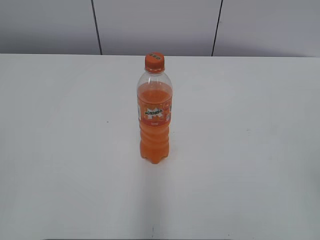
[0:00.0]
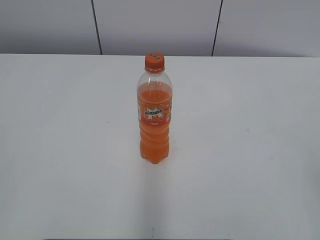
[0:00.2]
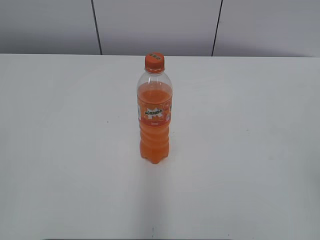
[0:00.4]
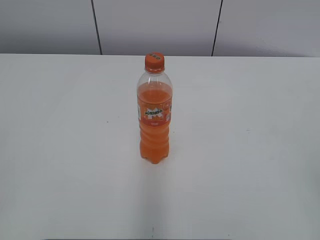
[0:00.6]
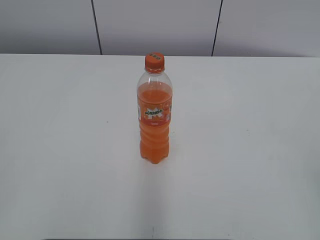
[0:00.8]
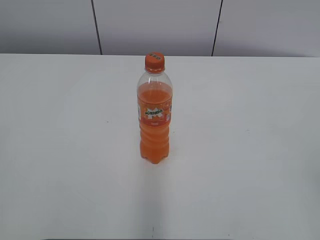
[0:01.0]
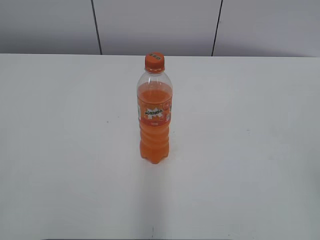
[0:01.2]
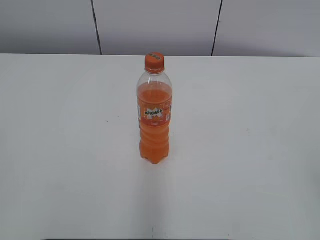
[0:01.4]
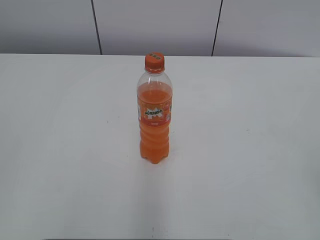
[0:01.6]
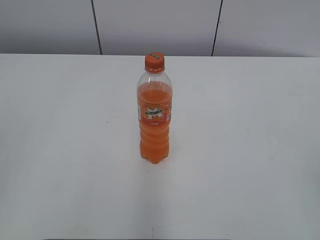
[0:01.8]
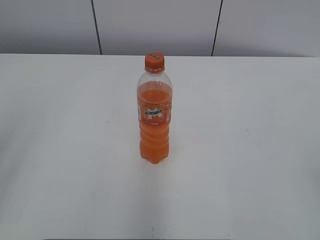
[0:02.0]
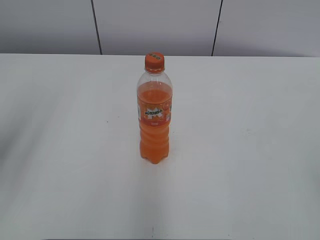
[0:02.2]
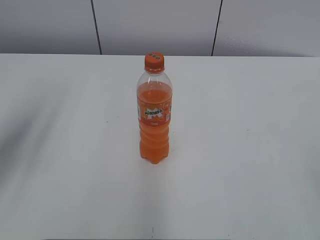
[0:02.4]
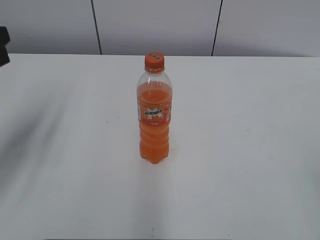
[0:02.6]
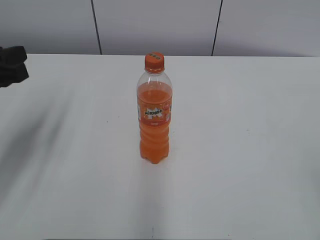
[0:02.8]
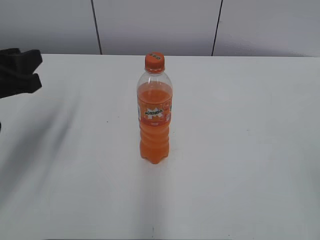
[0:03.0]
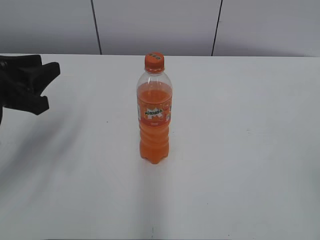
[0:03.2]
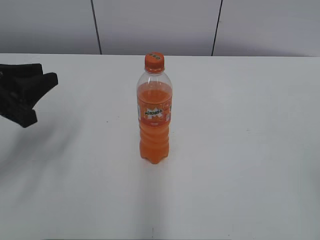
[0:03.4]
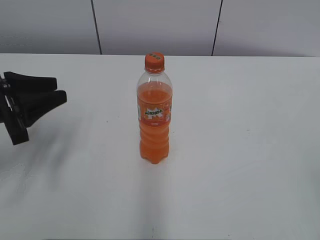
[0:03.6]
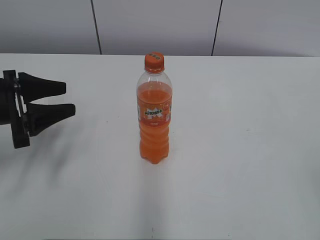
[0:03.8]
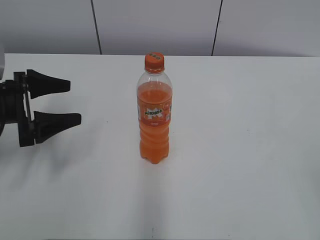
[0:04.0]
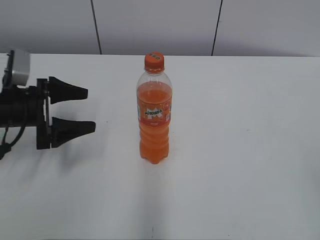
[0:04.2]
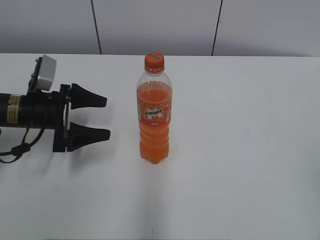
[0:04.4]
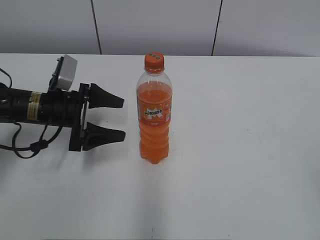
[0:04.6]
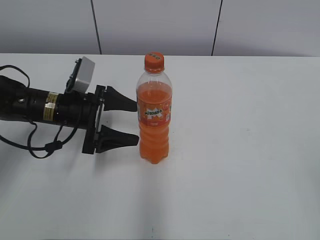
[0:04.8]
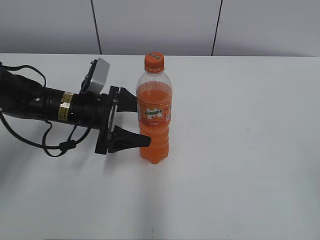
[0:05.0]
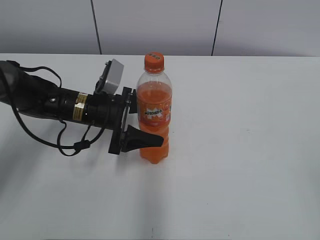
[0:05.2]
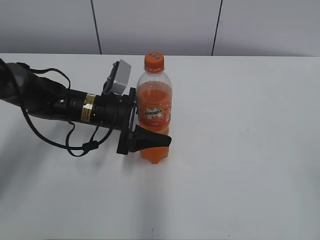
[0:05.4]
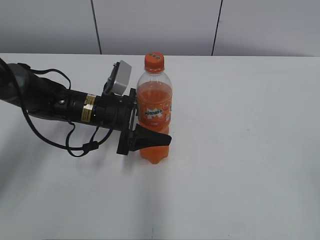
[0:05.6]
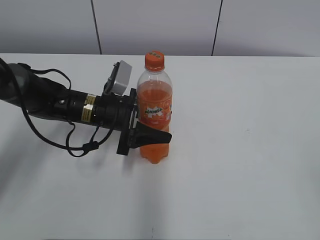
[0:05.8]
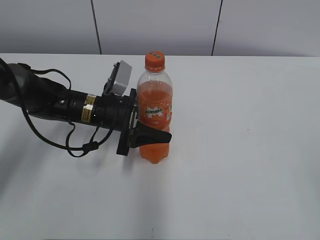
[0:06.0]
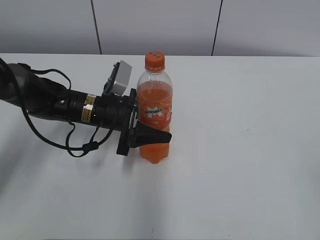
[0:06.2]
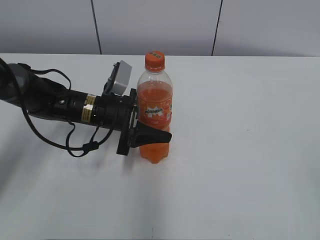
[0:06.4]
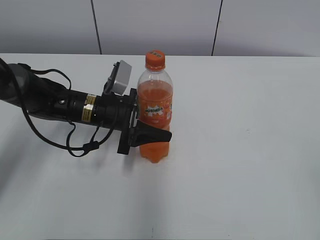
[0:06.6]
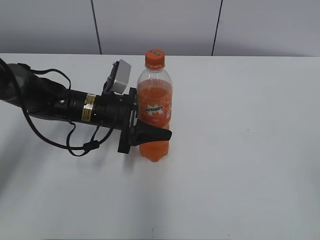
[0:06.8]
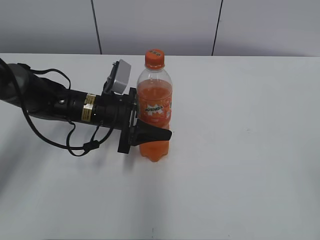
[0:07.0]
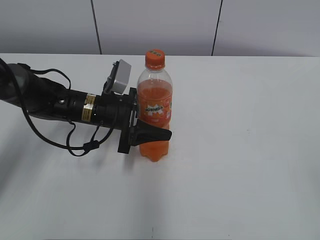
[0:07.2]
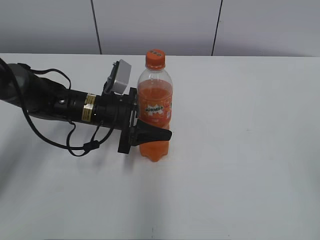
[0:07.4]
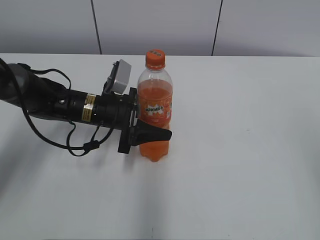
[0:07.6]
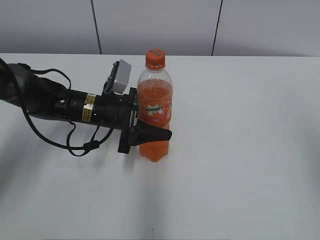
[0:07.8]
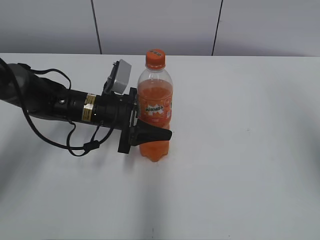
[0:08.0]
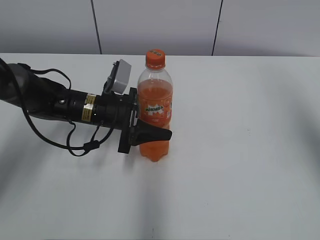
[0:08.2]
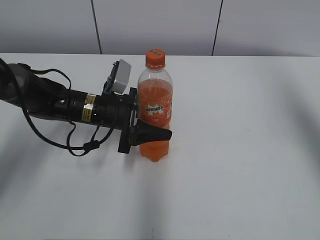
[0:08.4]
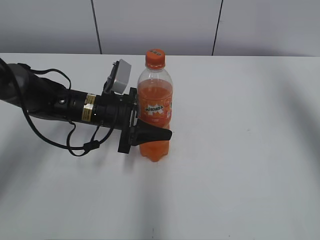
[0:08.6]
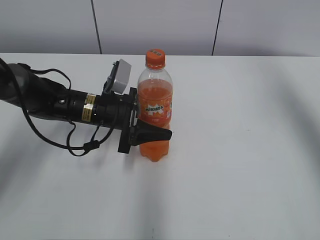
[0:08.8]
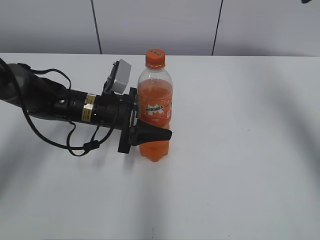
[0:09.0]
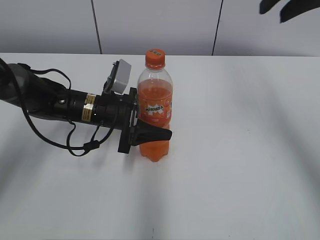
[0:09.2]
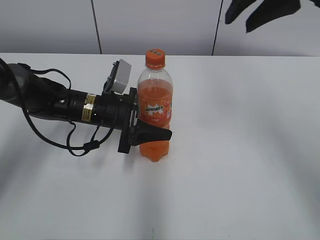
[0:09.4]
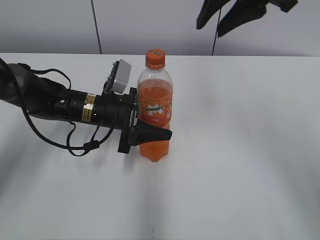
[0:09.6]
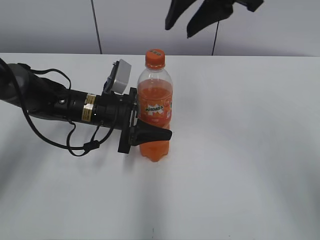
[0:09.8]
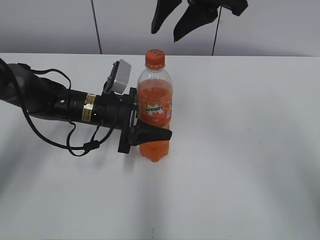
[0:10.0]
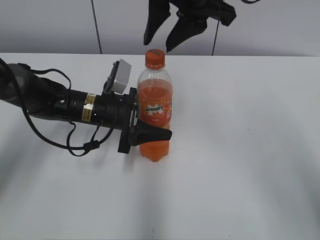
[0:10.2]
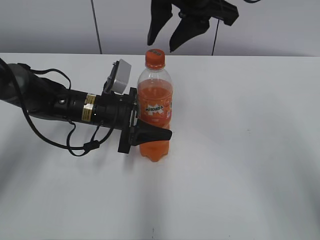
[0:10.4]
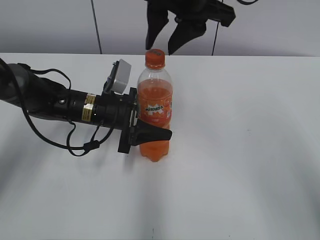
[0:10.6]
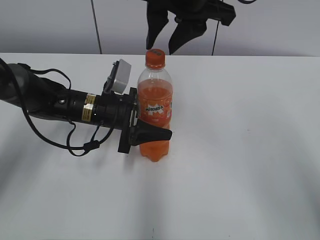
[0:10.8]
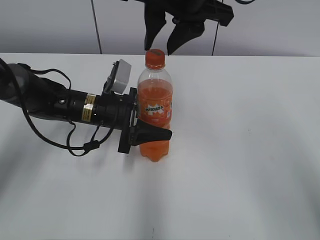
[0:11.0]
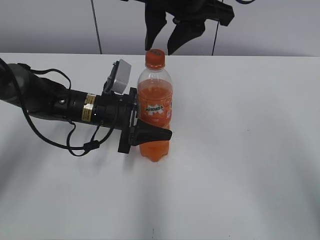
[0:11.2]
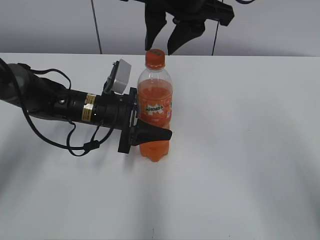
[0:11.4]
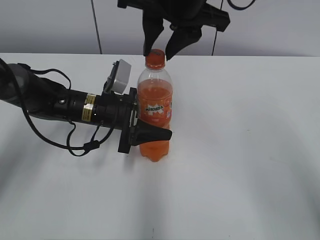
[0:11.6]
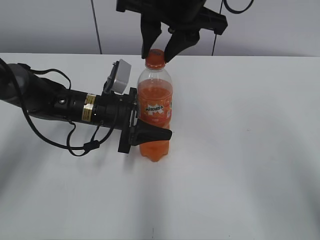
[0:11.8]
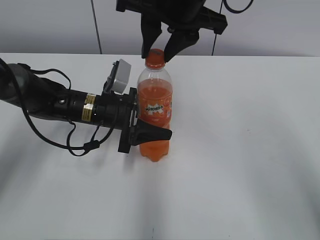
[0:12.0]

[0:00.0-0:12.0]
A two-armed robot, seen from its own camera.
Step, 0:00.0 to 0:06.0: Grab the Mirinda with the left hand.
0:01.6 to 0:03.0: The left gripper is displaced forward by about 25 cm.
0:03.0 to 0:04.4: The left gripper heads downward and forward, covering about 15 cm, and opens.
0:04.4 to 0:06.0: The left gripper travels to the right by roughly 10 cm, and closes.
0:06.0 to 0:07.6: The right gripper moves upward and forward, approximately 10 cm.
0:07.6 to 0:09.0: The right gripper goes some 30 cm forward.
0:09.0 to 0:10.4: The right gripper shifts roughly 20 cm to the left.
0:10.4 to 0:12.0: There are only small adjustments of the grippers.

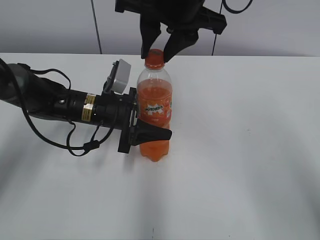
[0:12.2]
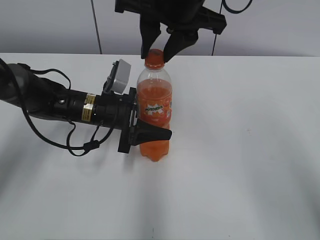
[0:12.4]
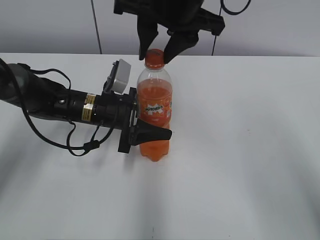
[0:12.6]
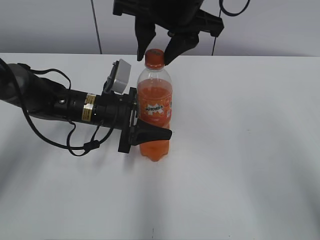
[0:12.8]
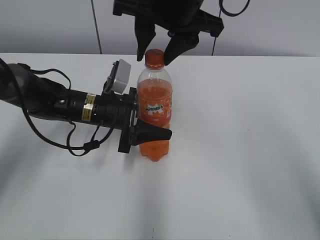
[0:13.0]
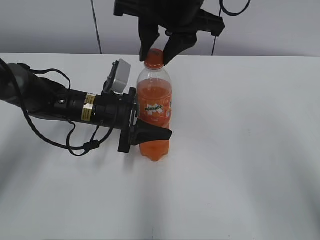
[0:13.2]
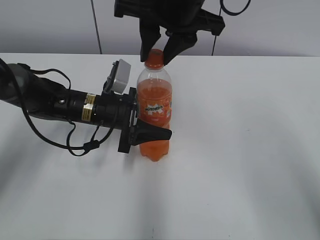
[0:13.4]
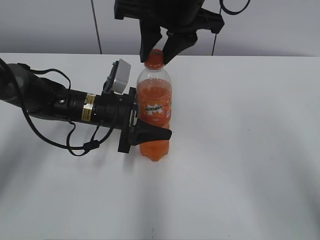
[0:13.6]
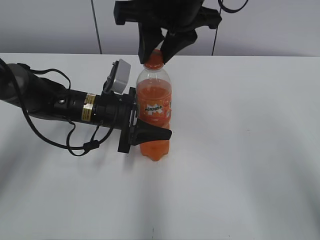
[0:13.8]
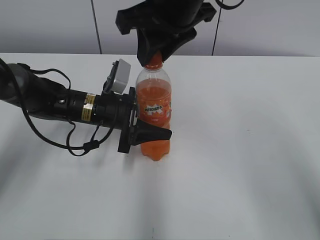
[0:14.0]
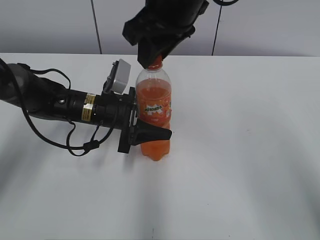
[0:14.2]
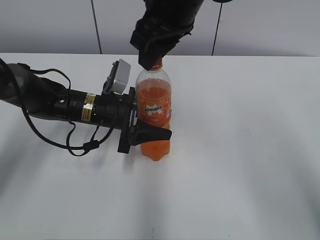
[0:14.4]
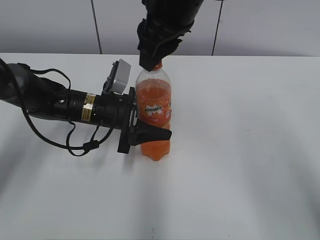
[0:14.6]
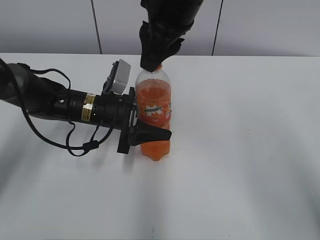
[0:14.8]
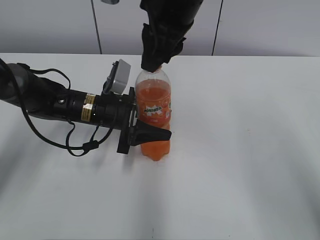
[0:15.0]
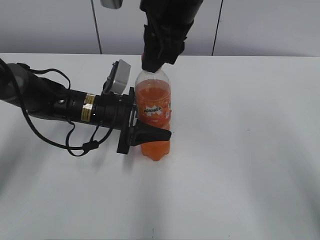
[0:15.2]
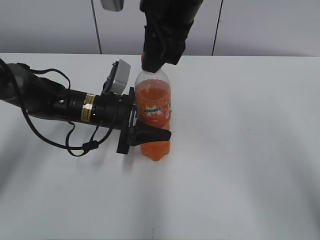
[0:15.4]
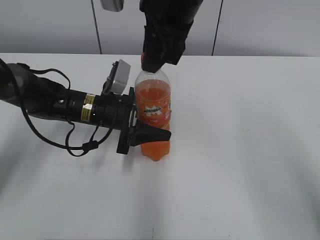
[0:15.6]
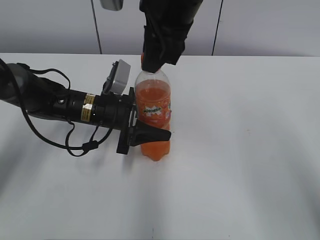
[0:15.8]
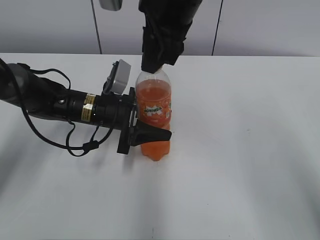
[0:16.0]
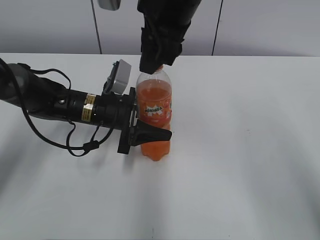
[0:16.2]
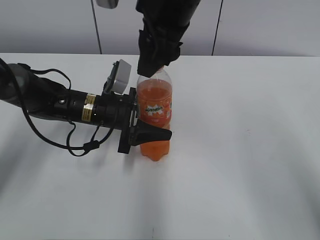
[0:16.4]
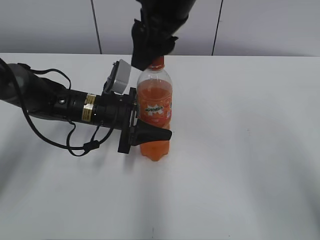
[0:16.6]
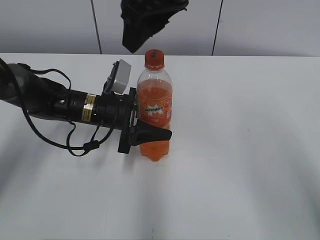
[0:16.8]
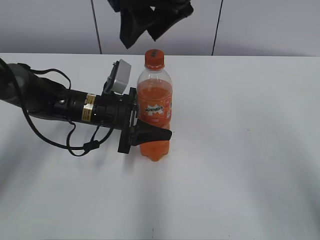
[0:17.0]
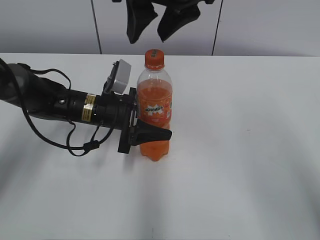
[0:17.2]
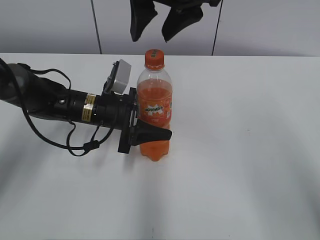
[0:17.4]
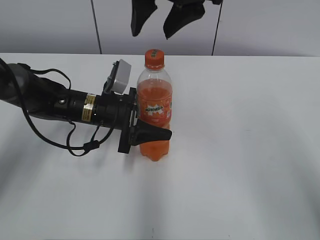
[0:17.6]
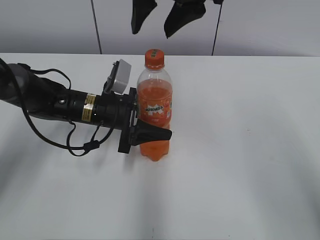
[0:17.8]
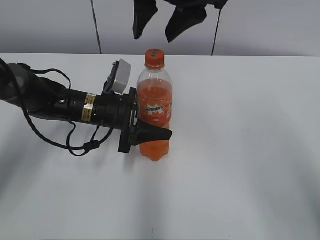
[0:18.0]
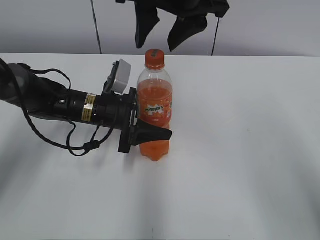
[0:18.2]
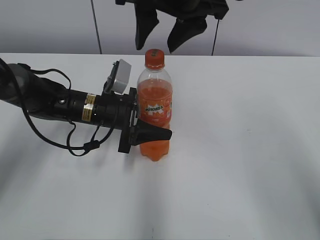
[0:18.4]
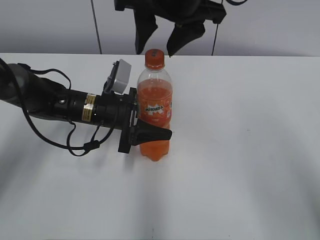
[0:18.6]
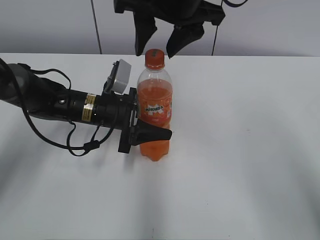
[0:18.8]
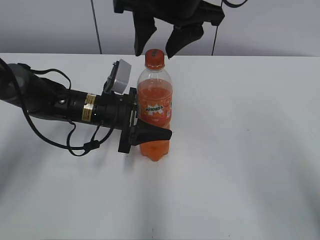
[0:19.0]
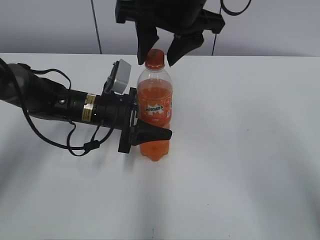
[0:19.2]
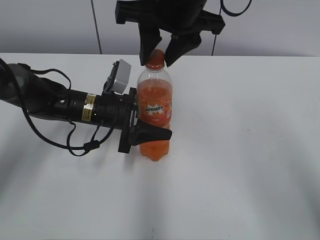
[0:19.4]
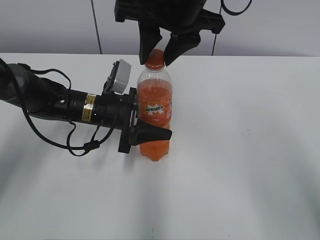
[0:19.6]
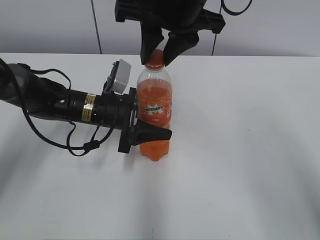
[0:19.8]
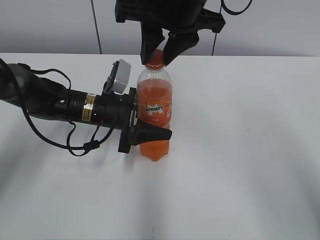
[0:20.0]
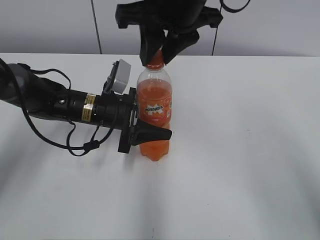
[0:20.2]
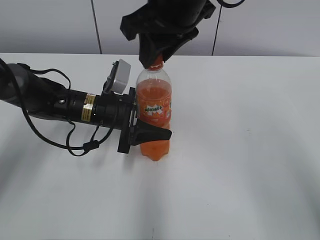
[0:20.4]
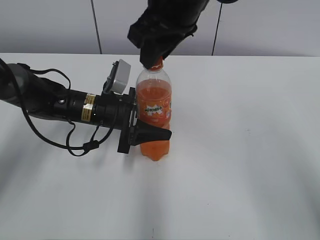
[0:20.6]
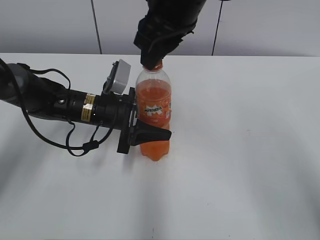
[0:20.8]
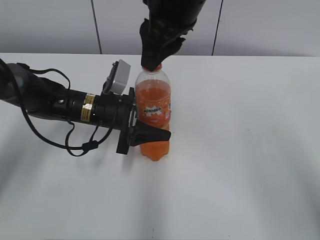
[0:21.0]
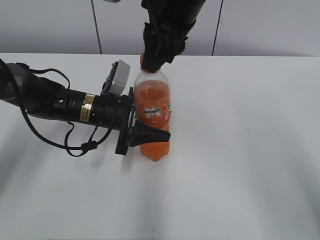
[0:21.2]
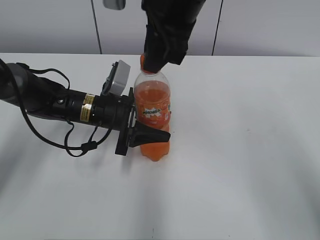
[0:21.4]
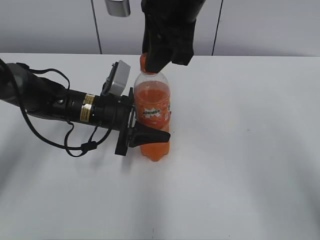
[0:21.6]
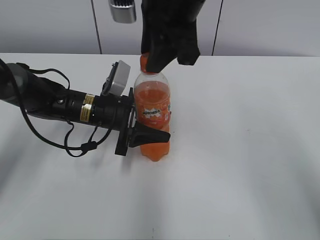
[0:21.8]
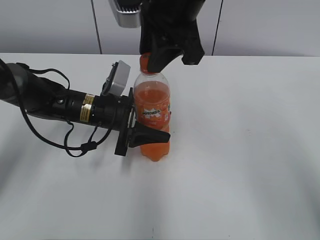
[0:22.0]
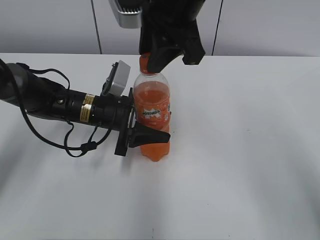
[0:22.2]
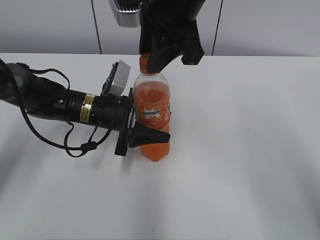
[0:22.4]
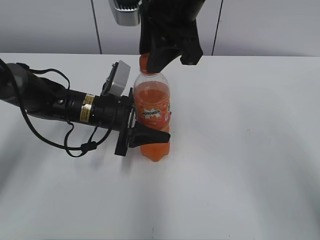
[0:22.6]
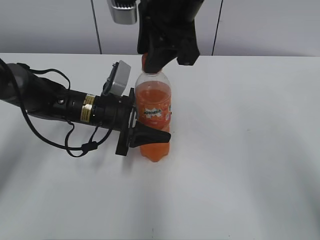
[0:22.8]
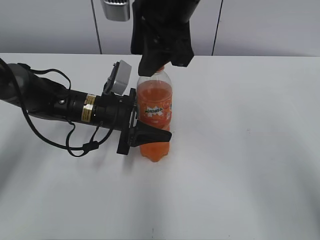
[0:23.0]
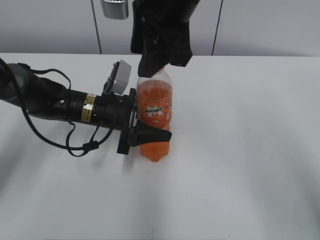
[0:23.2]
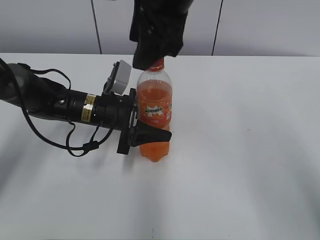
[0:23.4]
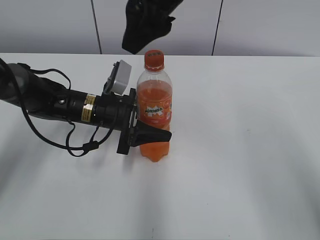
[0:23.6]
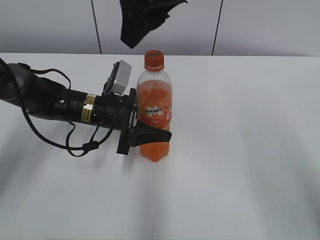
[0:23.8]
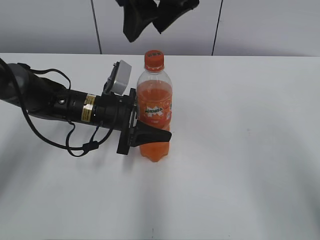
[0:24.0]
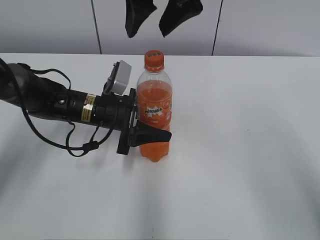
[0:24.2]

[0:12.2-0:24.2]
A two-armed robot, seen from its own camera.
0:12.2 to 0:13.8: There are only small adjustments of the grippers.
0:15.2 to 0:16.6: The right gripper opens its fingers.
0:18.2 to 0:19.8: The right gripper closes.
0:22.6 to 0:24.2: The right gripper opens up.
